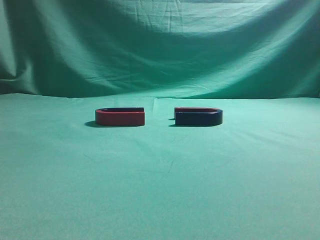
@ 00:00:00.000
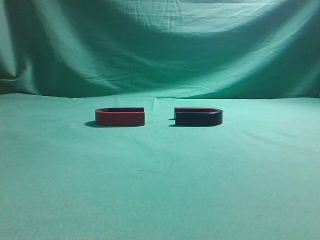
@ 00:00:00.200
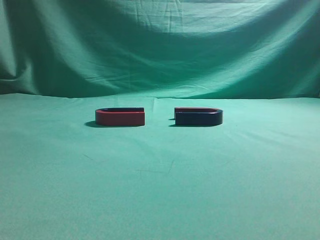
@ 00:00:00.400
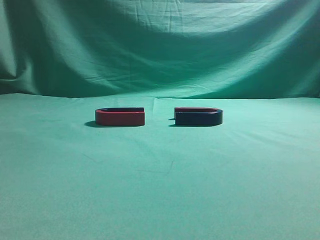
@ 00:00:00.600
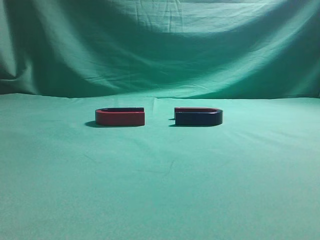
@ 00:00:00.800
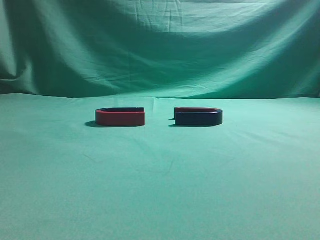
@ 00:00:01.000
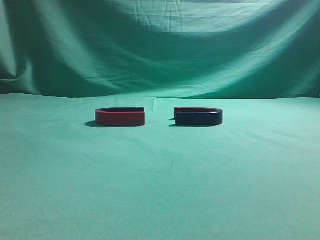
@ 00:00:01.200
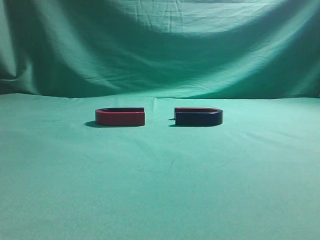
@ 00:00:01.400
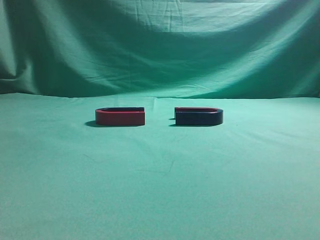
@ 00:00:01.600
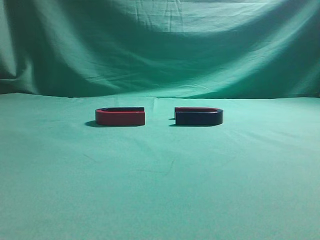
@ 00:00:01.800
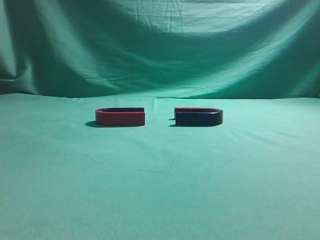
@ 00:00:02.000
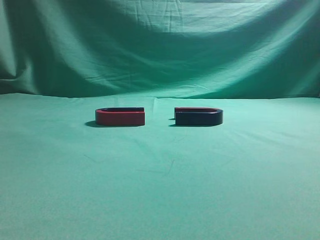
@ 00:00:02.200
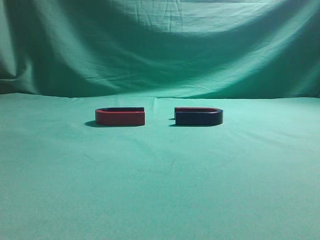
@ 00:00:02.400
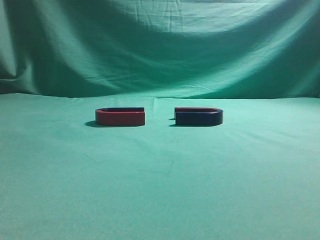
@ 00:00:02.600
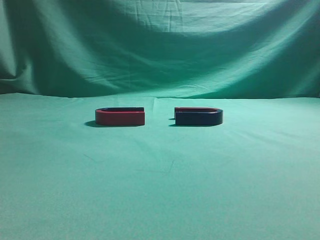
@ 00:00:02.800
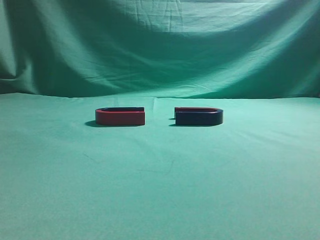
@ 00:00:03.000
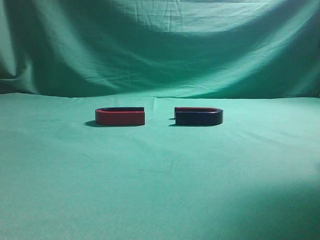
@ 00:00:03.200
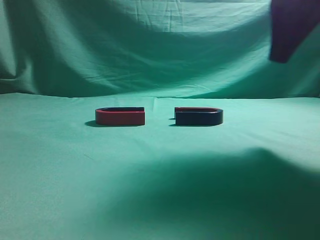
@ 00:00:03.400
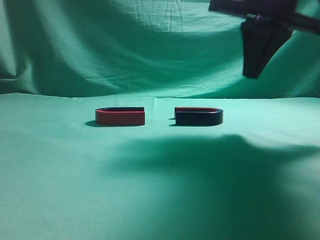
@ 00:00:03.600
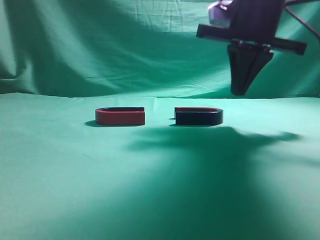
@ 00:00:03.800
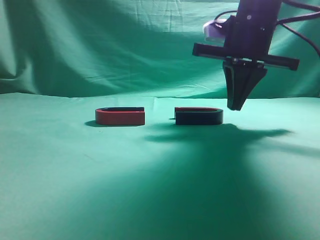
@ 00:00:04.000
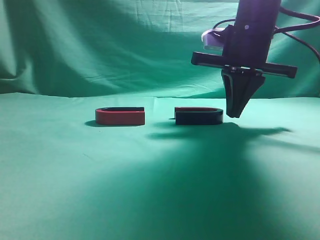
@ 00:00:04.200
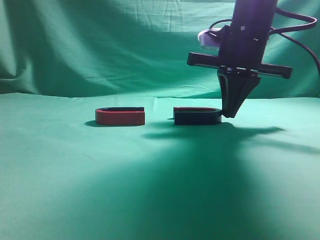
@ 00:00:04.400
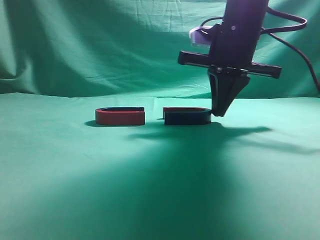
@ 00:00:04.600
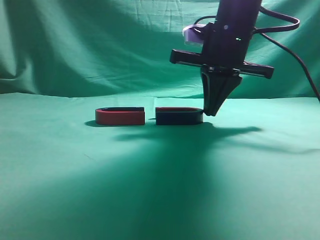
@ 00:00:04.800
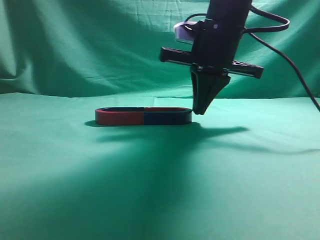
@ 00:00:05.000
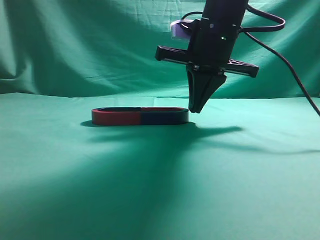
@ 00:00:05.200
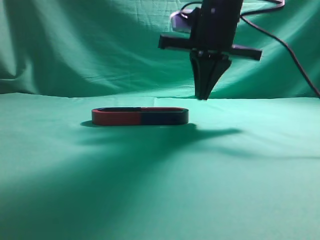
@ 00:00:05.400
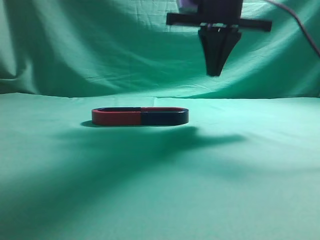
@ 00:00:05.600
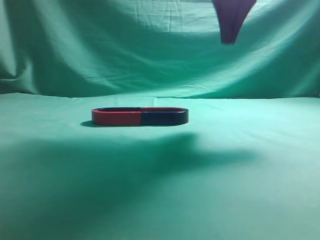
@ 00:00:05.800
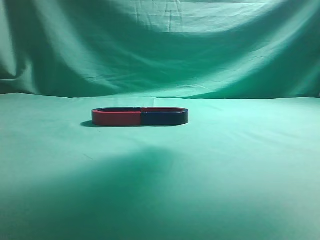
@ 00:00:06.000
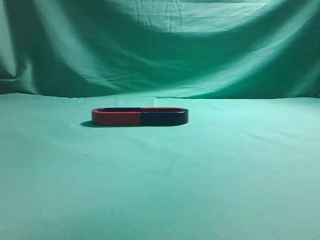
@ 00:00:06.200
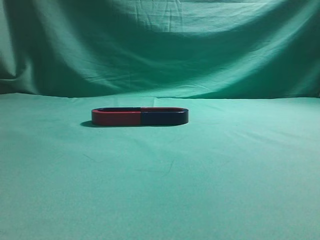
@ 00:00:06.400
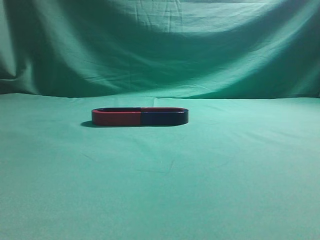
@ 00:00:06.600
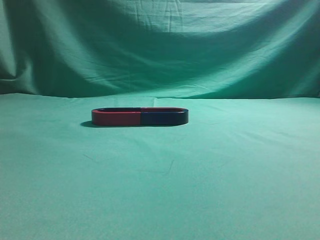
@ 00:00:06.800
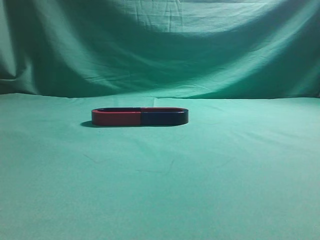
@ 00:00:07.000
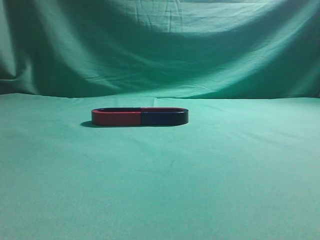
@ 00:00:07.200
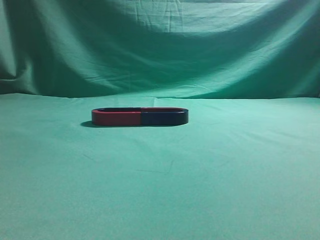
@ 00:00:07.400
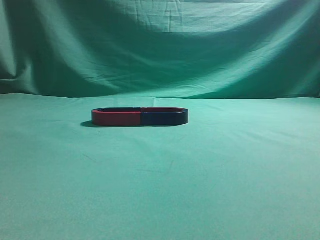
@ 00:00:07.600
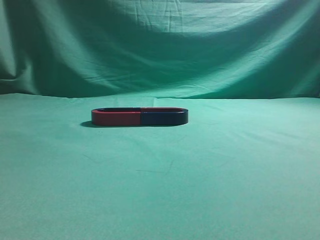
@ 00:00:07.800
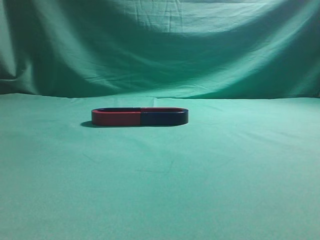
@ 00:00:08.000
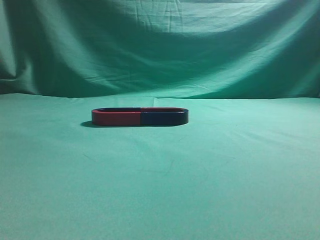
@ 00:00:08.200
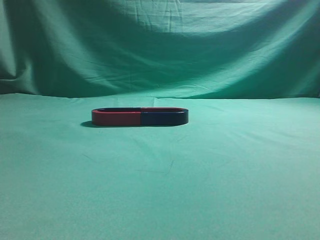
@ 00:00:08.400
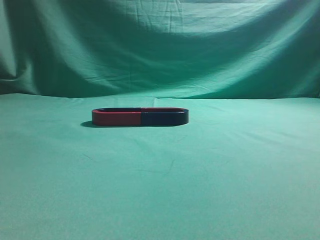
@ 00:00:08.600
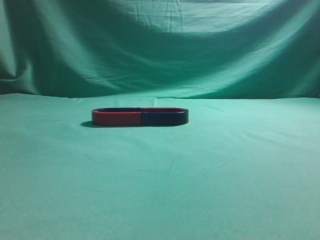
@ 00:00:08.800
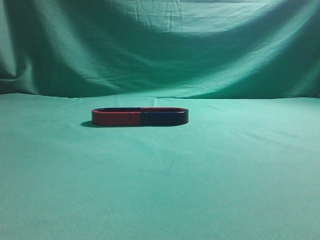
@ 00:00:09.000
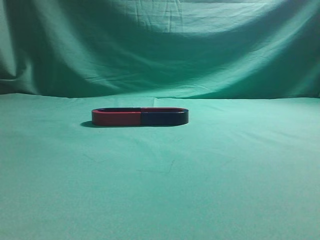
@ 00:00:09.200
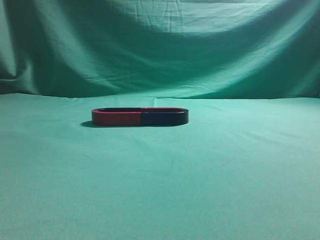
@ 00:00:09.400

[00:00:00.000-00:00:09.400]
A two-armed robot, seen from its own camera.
Task of the whole recording: push the magnet on the table from its original position to another position.
Step, 00:00:00.000 to 00:00:05.200: Push the magnet on the right to connect the magnet on the left.
00:00:01.600 to 00:00:03.200: The right gripper shifts roughly 20 cm forward.
00:00:03.200 to 00:00:04.800: The right gripper is displaced forward, to the left and downward by about 20 cm.
00:00:04.800 to 00:00:06.200: The right gripper moves upward, about 25 cm.

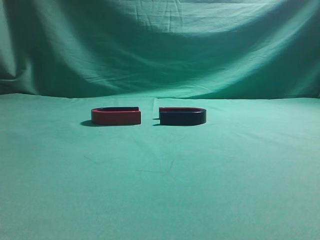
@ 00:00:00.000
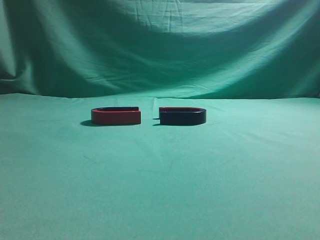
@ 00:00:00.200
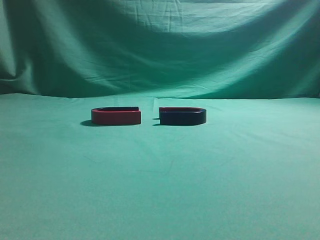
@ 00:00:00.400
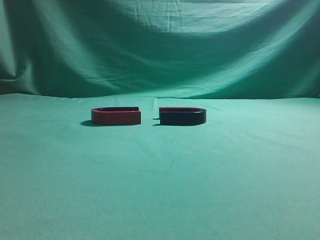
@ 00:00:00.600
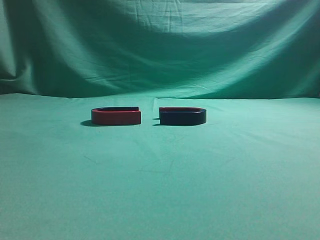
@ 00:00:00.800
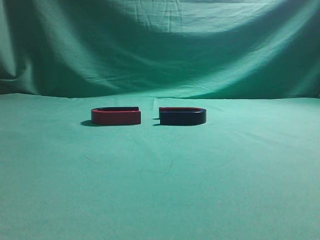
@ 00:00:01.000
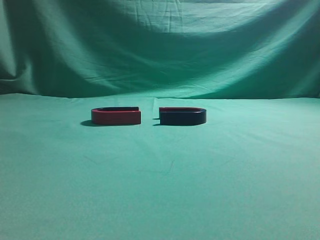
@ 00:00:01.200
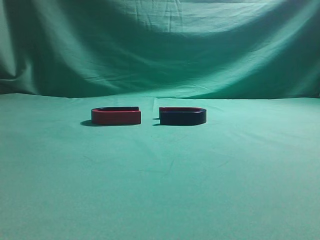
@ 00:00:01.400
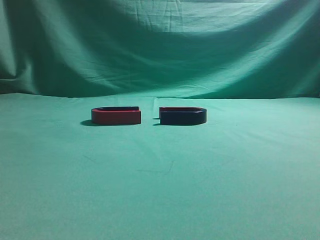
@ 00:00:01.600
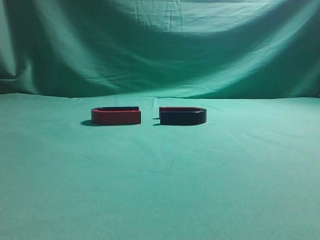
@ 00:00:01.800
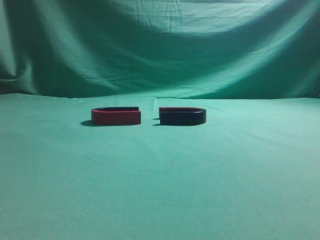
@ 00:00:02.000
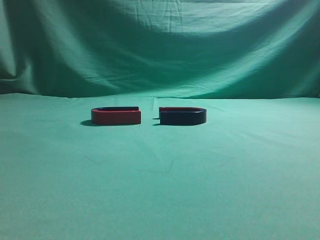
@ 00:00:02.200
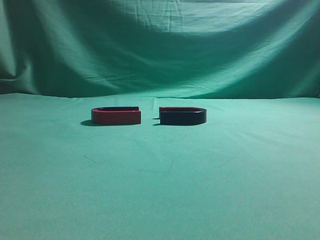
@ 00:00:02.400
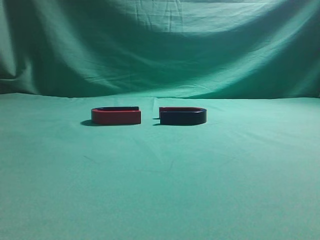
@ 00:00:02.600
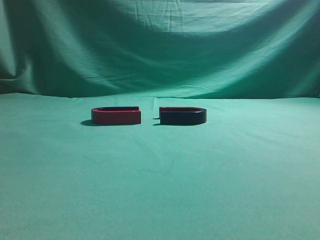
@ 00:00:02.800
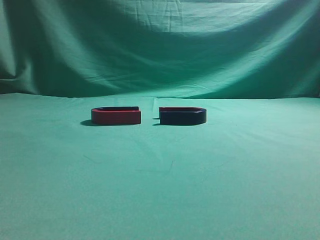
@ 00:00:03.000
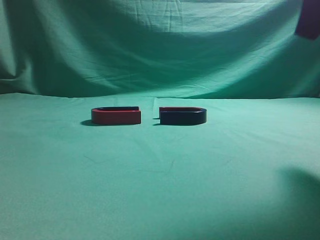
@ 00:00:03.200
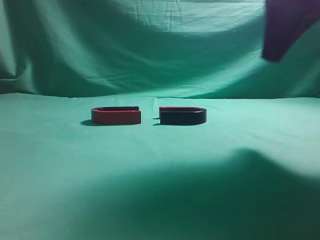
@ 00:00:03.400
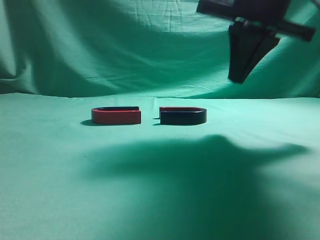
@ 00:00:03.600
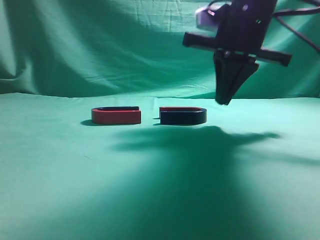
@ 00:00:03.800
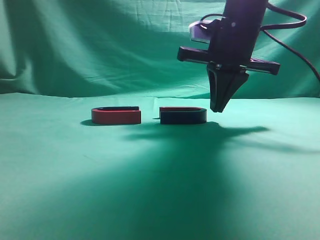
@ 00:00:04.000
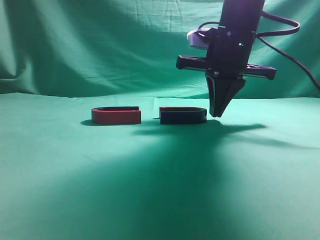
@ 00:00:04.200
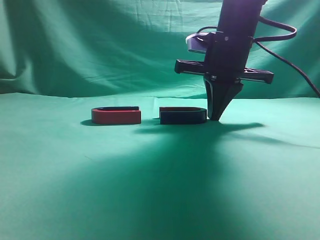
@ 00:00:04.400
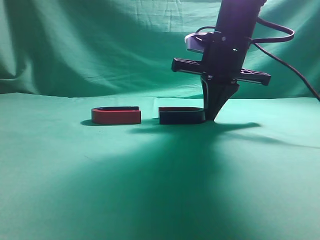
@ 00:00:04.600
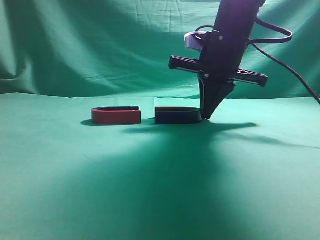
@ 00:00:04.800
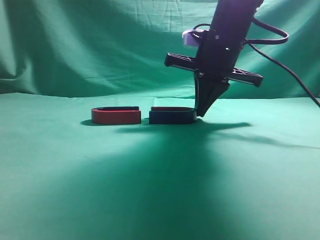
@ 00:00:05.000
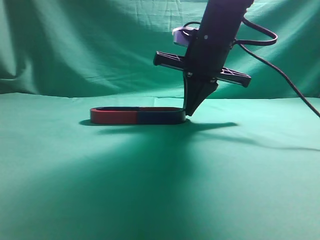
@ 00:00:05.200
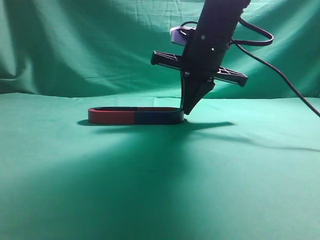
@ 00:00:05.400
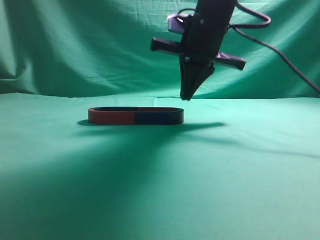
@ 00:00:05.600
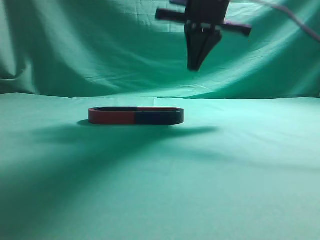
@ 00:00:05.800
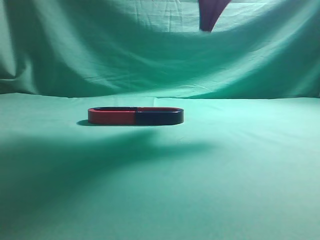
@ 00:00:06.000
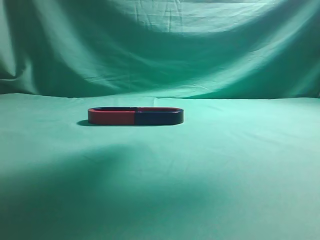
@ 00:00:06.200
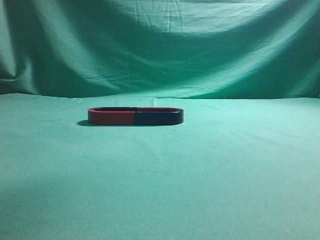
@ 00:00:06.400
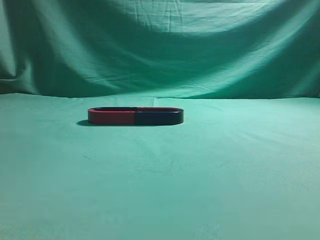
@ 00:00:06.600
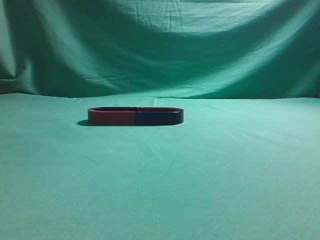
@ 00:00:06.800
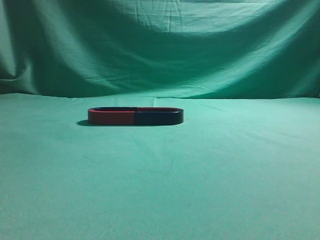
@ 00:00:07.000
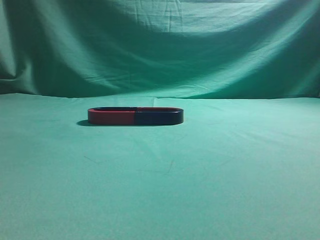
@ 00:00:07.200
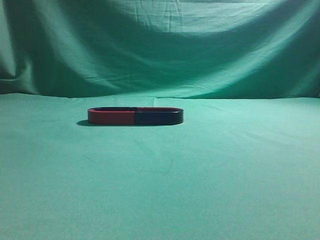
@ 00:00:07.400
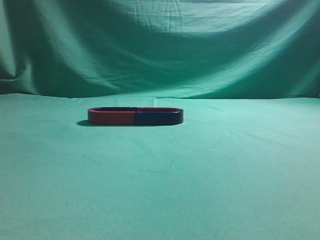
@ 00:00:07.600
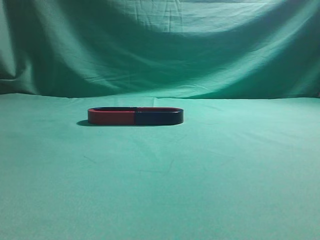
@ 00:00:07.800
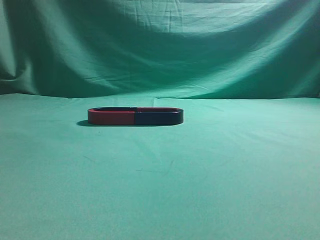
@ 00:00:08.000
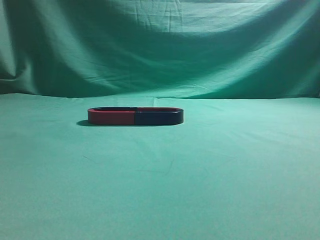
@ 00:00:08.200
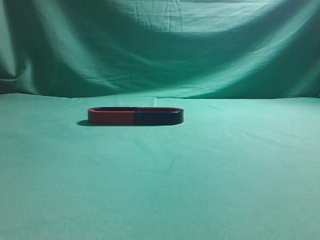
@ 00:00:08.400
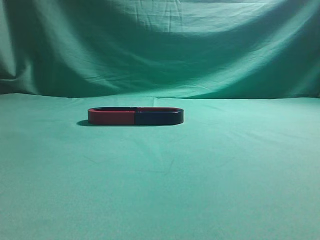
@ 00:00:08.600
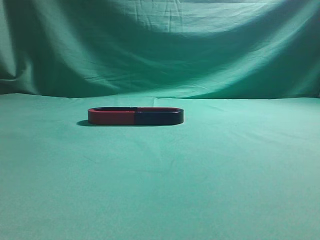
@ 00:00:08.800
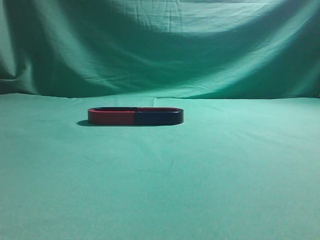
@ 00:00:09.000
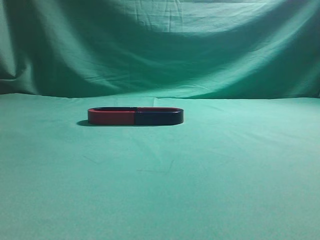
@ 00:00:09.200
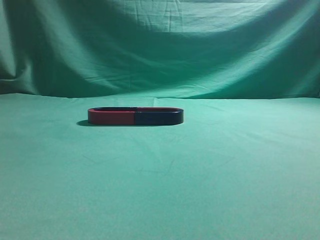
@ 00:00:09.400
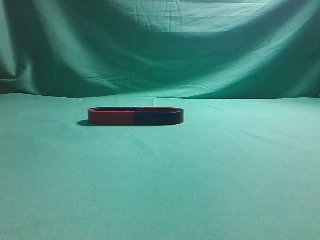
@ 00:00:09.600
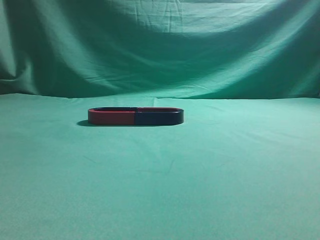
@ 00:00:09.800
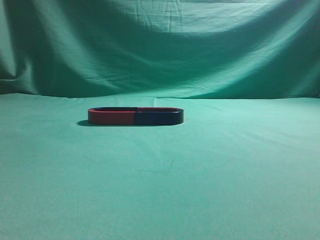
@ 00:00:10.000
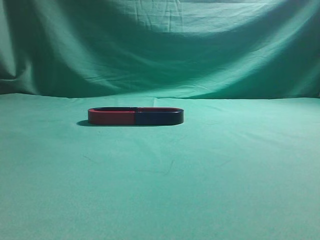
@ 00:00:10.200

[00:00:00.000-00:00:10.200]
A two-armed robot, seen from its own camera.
Task of the whole recording: push the magnet on the table from its original position to another position.
Step, 00:00:00.000 to 00:00:05.400: Push the magnet on the right to connect the magnet on the left.
00:00:03.000 to 00:00:04.400: The right gripper moves forward, to the left and downward, approximately 25 cm.
00:00:04.400 to 00:00:05.800: The right gripper travels upward by about 10 cm.
00:00:05.800 to 00:00:07.200: The right gripper is displaced backward, upward and to the right by roughly 30 cm.
